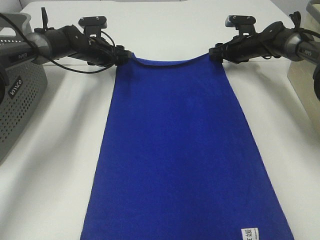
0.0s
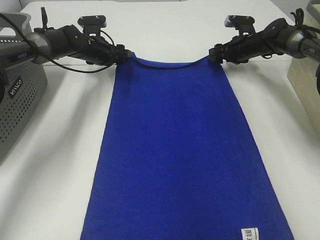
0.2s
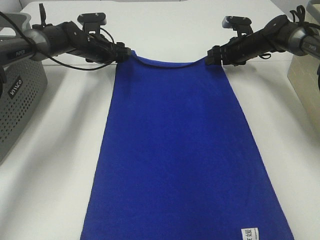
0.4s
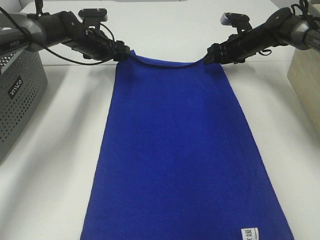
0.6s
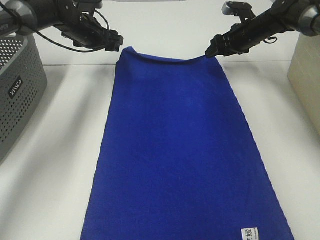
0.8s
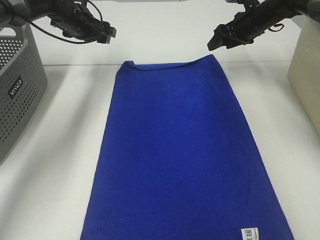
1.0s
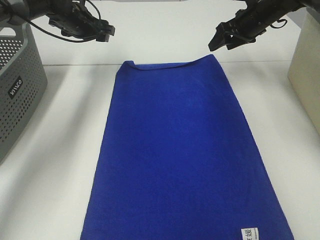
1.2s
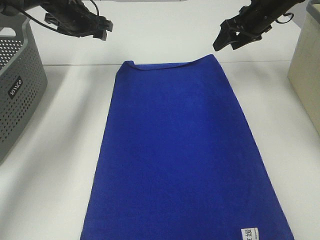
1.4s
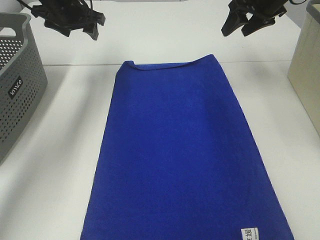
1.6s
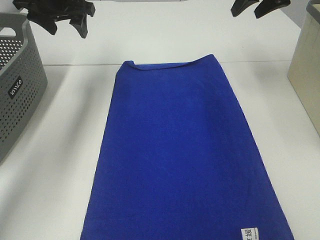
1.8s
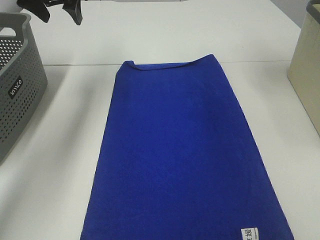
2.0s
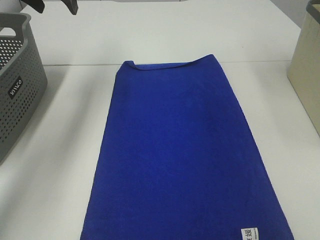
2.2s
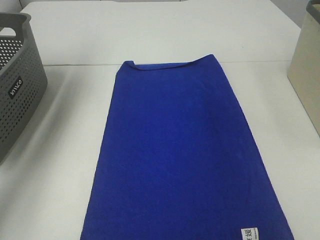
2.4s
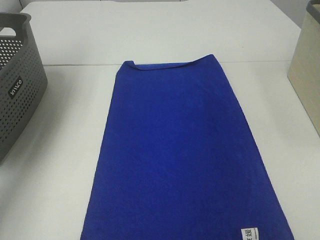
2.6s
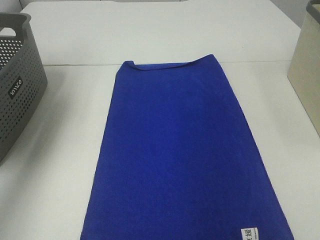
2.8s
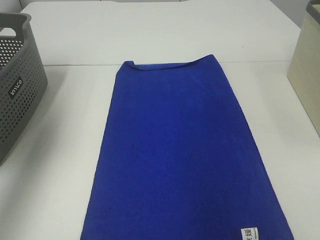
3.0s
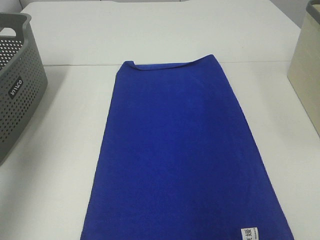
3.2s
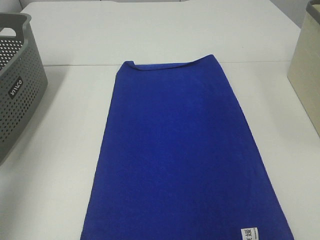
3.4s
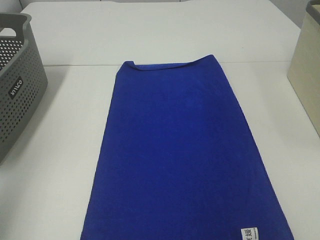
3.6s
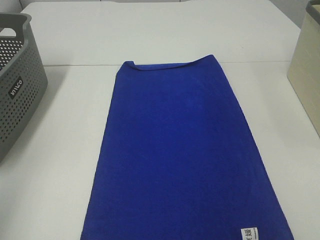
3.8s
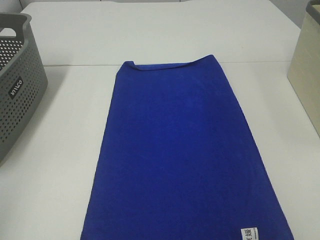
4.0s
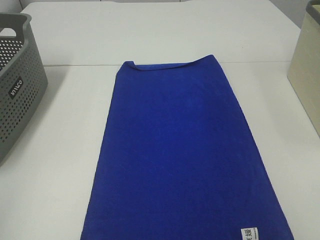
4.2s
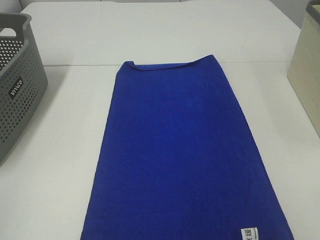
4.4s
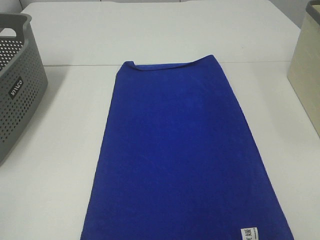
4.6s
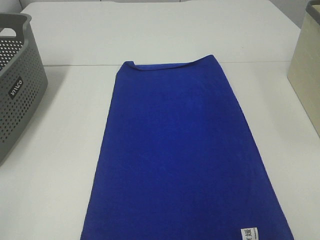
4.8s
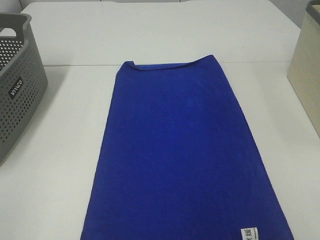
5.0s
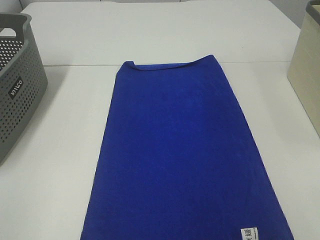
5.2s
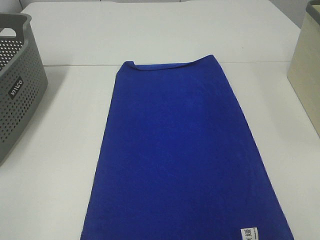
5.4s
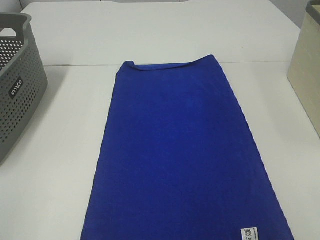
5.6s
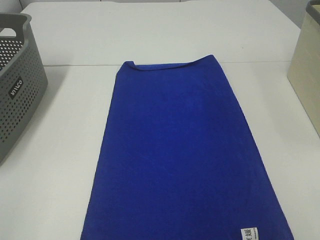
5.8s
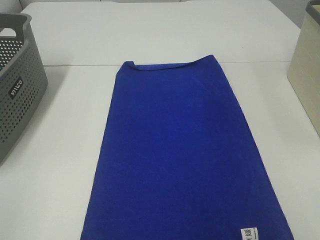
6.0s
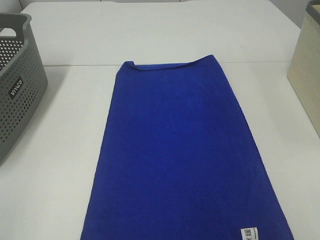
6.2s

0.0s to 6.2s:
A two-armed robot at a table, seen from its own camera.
Task of the whole recording: Remove the towel and place it.
0.0s to 1.6s: The right gripper moves upward and backward, roughly 20 cm. Meanwhile the left gripper is displaced upward by some 15 cm.
1.6s to 3.2s: The right gripper goes approximately 40 cm backward and upward. Meanwhile the left gripper goes roughly 35 cm backward, upward and to the left.
3.2s to 4.6s: The left gripper goes about 25 cm backward and downward.

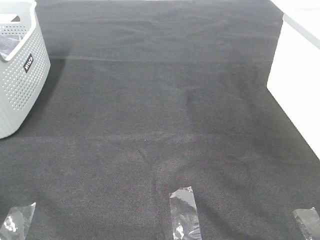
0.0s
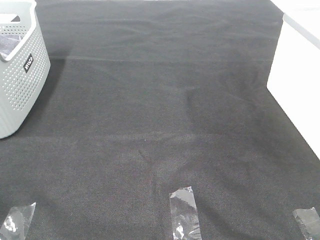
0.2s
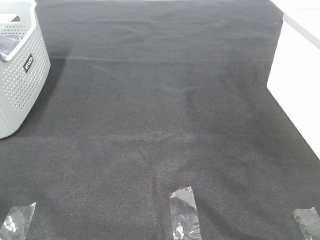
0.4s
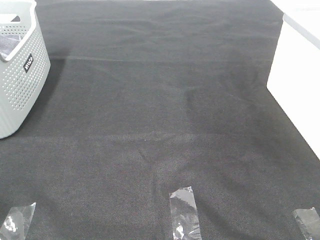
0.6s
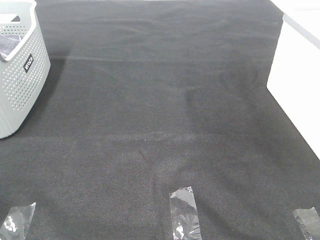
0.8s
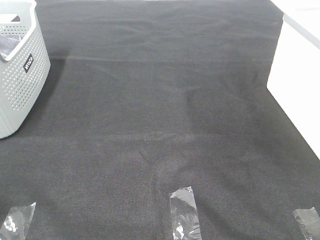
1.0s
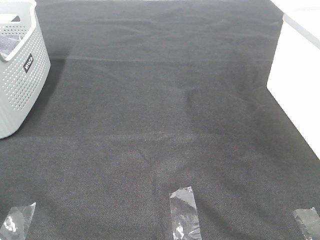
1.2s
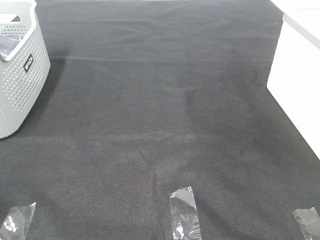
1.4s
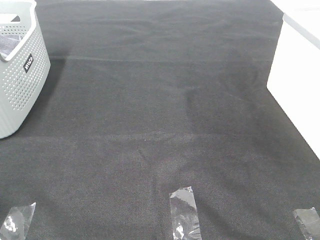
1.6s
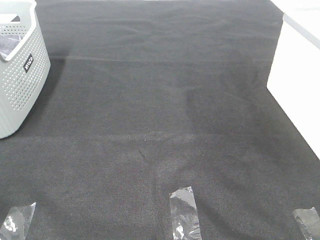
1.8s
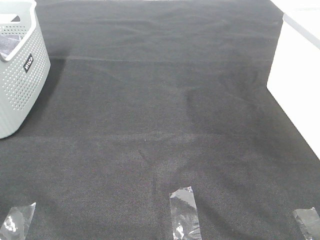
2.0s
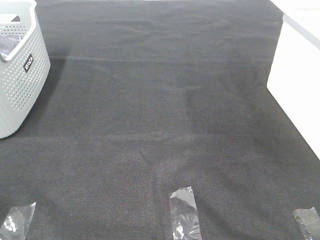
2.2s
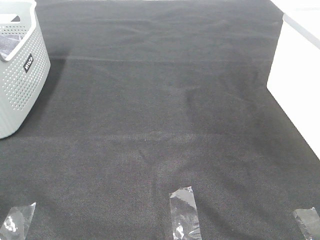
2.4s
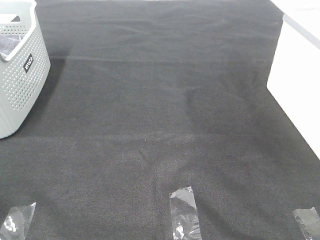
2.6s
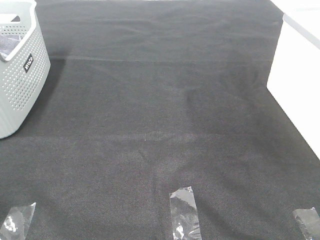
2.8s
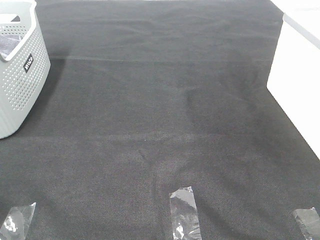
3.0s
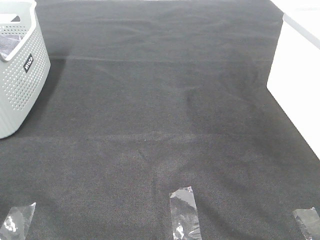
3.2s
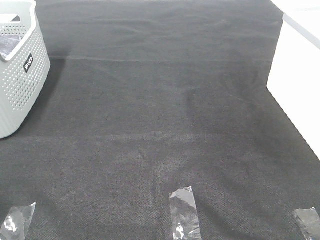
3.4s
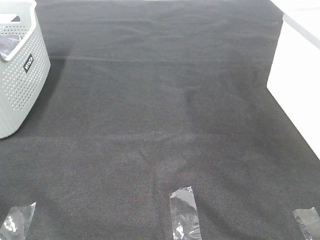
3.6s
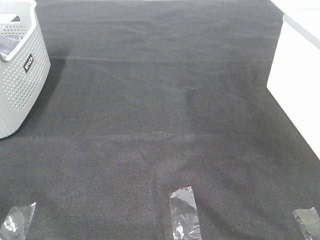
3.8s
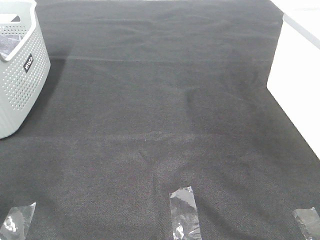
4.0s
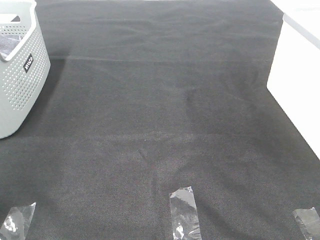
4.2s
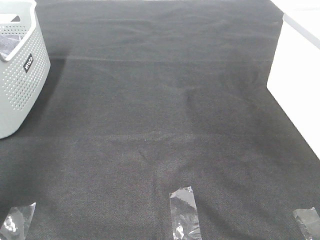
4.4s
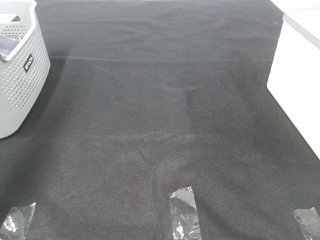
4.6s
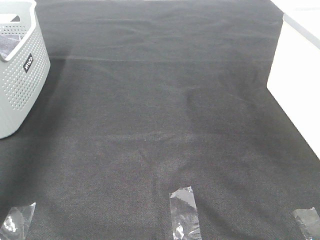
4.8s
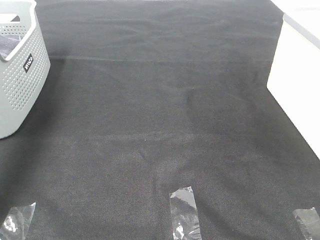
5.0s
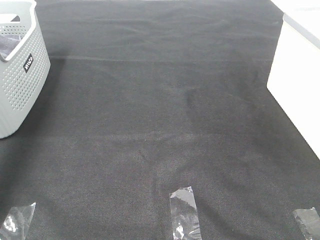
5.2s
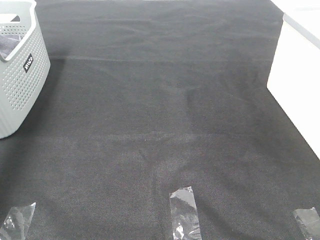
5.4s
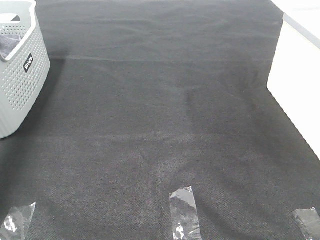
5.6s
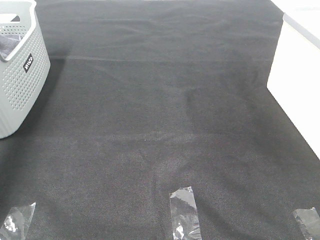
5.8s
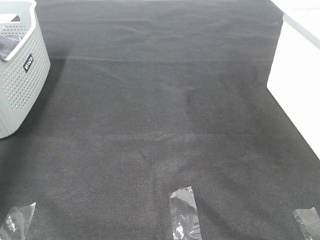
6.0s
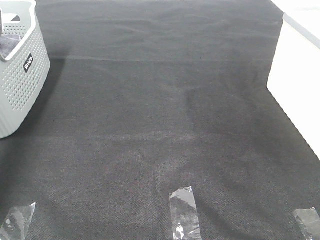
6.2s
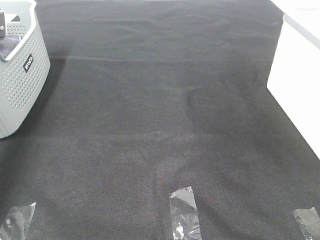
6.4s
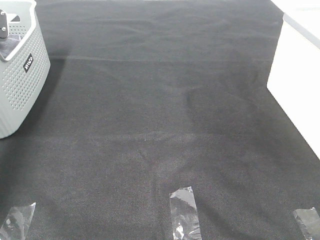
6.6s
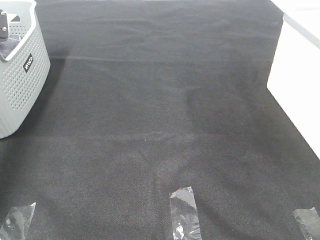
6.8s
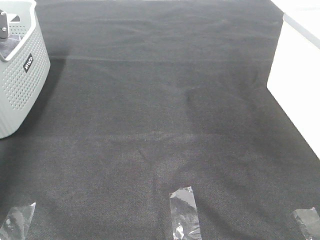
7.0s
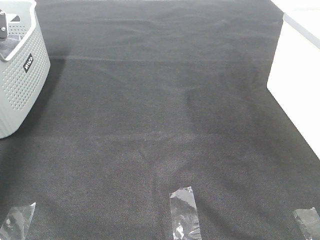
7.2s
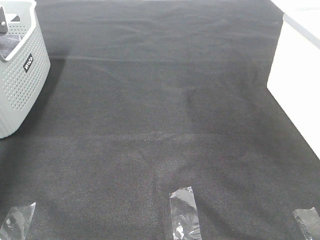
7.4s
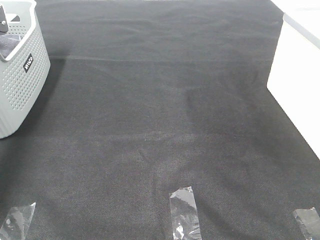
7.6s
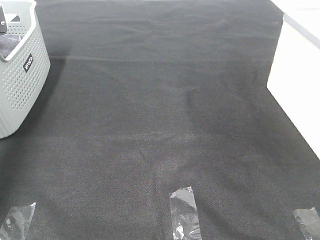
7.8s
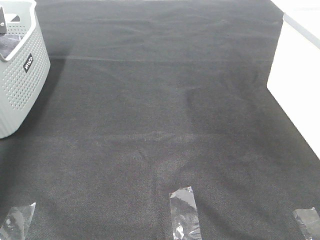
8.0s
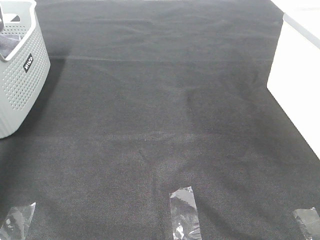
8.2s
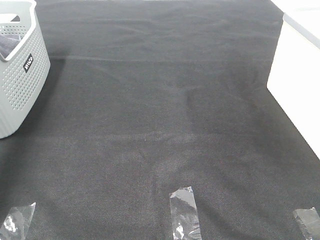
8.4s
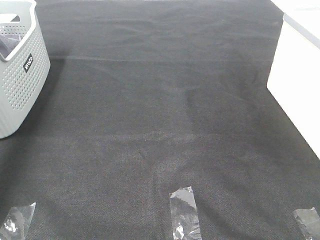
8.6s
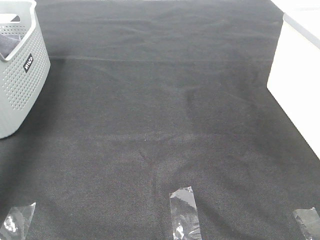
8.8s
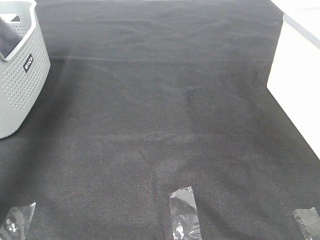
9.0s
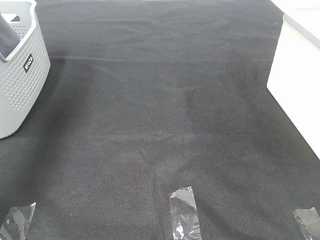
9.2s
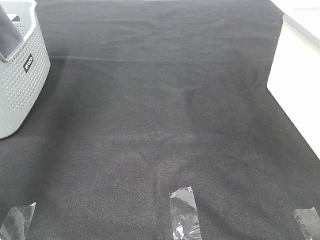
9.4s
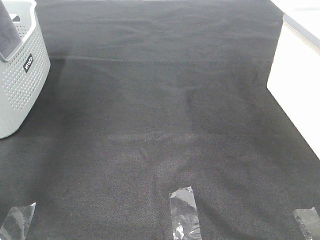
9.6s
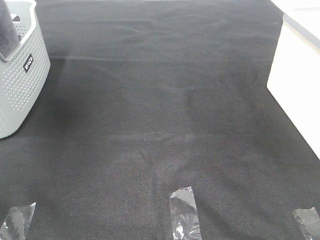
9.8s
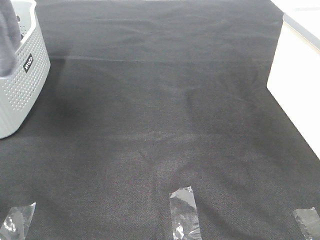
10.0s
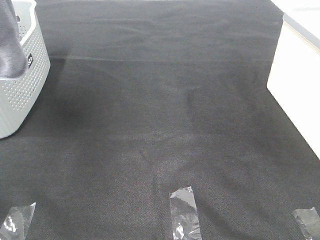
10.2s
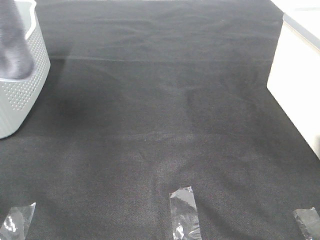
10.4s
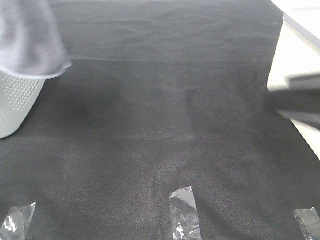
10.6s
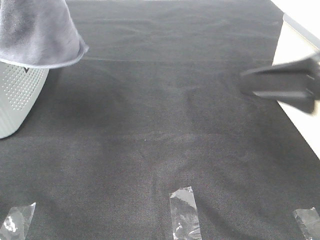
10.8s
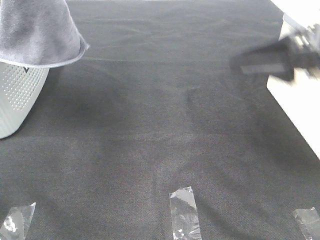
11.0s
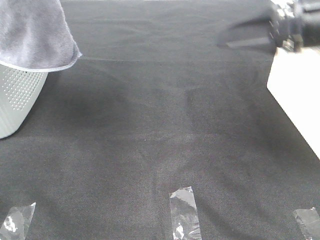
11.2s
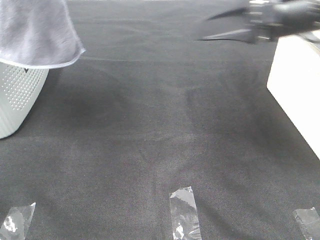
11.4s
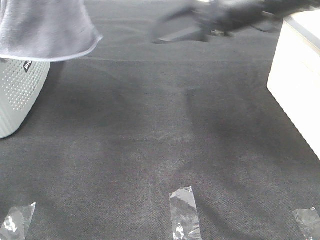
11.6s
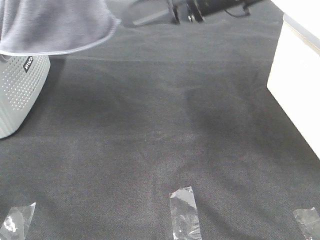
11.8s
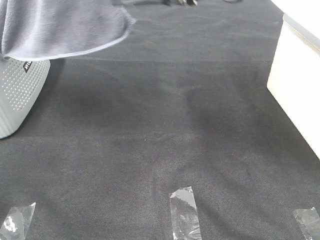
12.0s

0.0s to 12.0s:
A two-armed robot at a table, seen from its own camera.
Task of the whole recording: Remove the towel and place it.
0.0s to 3.0s: Neither gripper changes place.
3.0s to 4.4s: The left gripper is displaced forward and upward by roughly 25 cm.
4.4s to 6.0s: The left gripper travels forward and downward by roughly 35 cm.
7.6s to 9.0s: The left gripper moves upward and backward, roughly 25 cm, and closes its fingers.
9.0s to 10.4s: The right gripper moves forward, roughly 10 cm. Meanwhile the left gripper moves to the right, backward and upward, approximately 20 cm.
10.4s to 12.0s: The right gripper is displaced forward and to the left by some 30 cm.

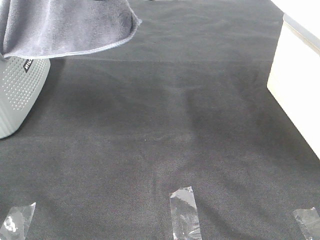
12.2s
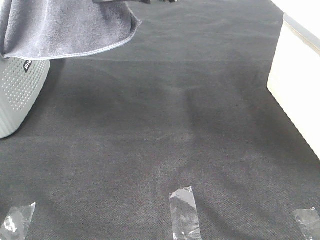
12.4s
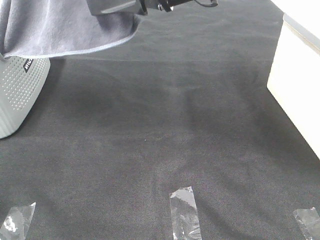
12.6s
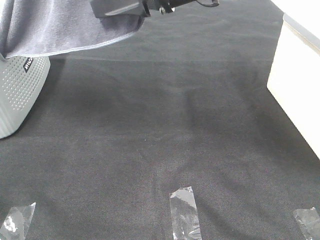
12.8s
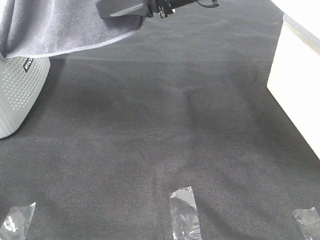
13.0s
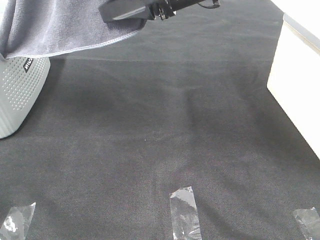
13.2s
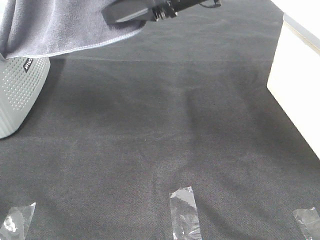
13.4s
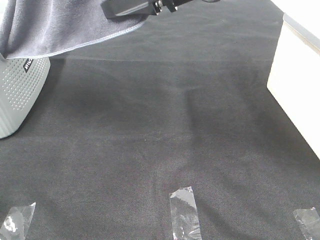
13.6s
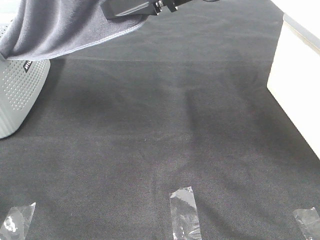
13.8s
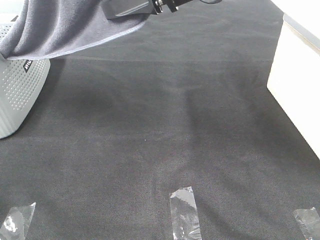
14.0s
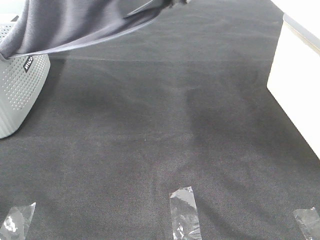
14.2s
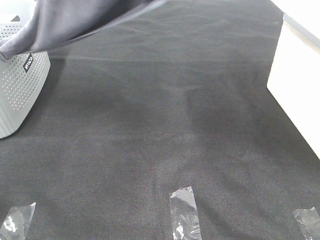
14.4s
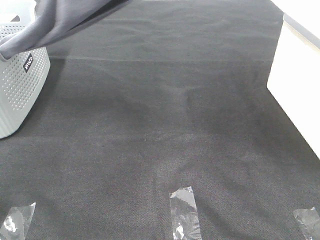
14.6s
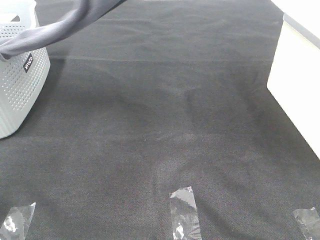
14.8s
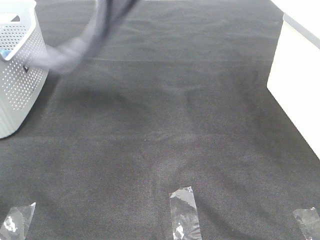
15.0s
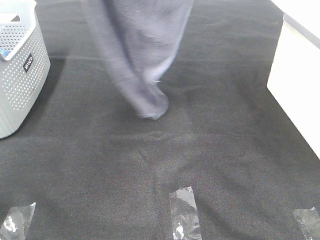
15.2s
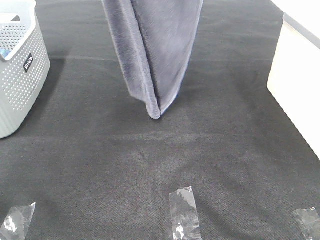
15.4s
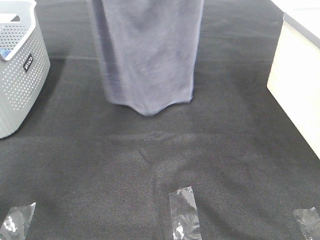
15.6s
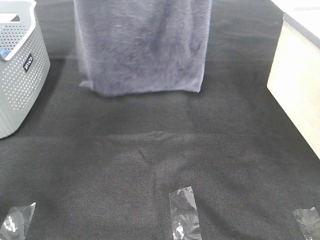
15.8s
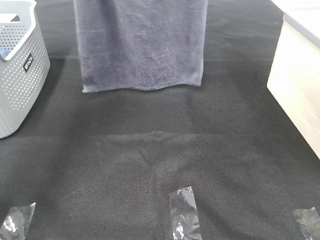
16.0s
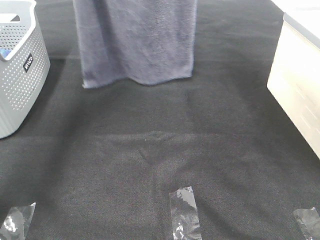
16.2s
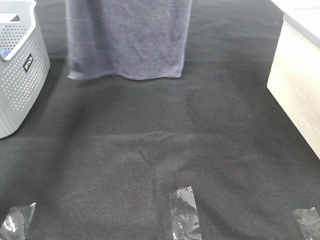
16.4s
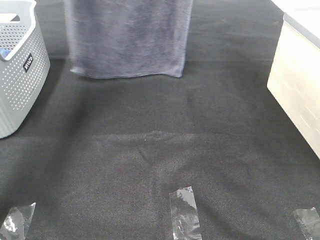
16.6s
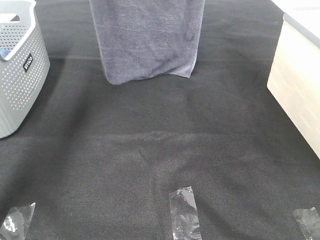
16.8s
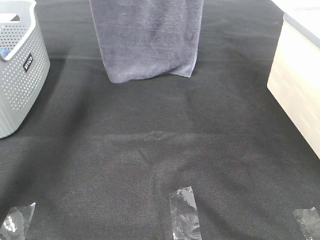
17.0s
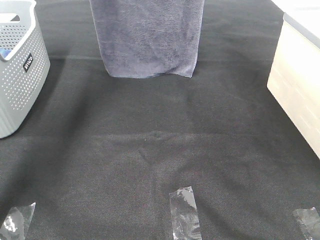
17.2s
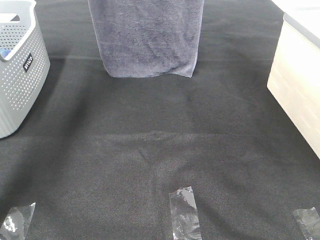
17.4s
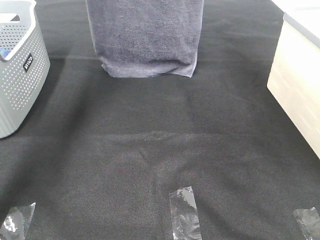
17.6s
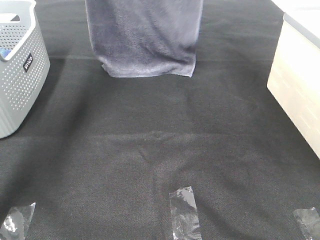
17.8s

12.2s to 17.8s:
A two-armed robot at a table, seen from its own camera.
Task of the whole recording: Remove the towel and place it.
Step, 12.2s to 14.4s: Right hand: grab a corner of the grey towel and straighten it.
12.2s to 13.6s: The right gripper closes its fingers.
13.6s to 15.0s: The left gripper moves forward, roughly 5 cm; the right gripper goes approximately 20 cm upward and to the right.
15.0s to 16.4s: The left gripper shifts approximately 15 cm forward and downward. Meanwhile the right gripper goes about 10 cm forward.
16.4s to 17.8s: The right gripper changes place by about 5 cm; the left gripper goes approximately 5 cm forward.
